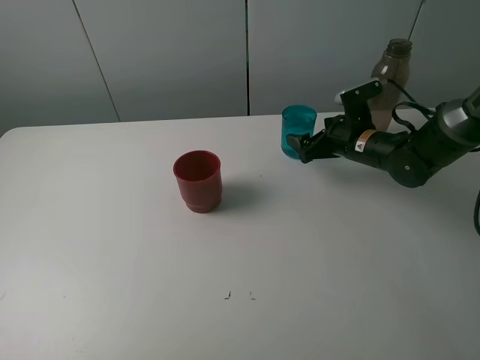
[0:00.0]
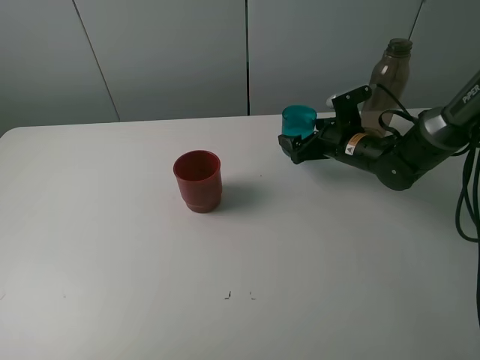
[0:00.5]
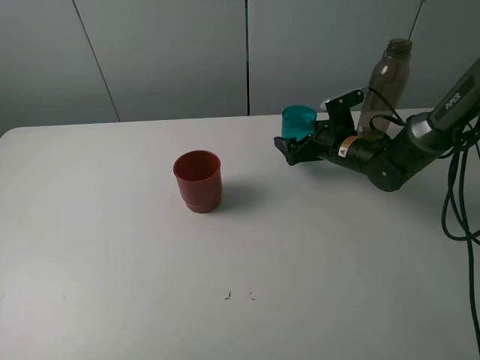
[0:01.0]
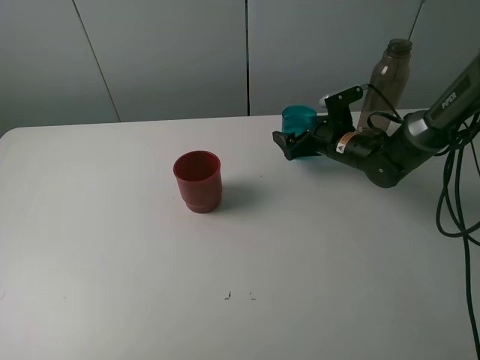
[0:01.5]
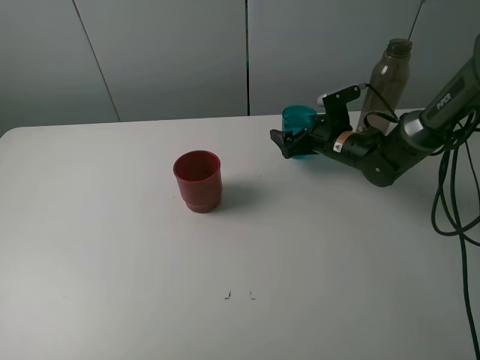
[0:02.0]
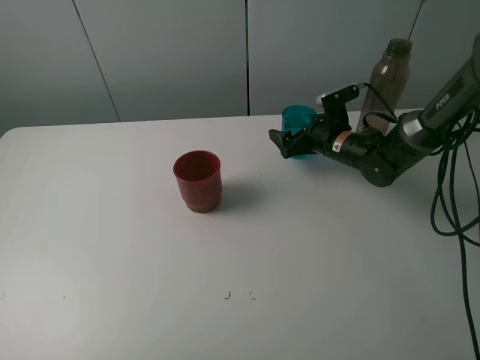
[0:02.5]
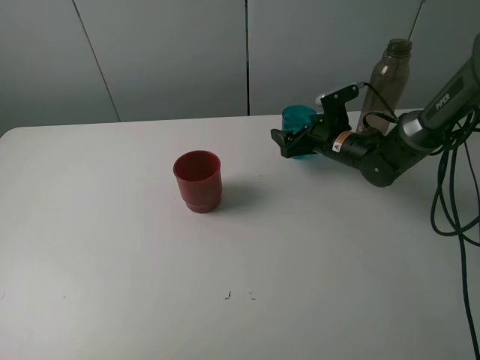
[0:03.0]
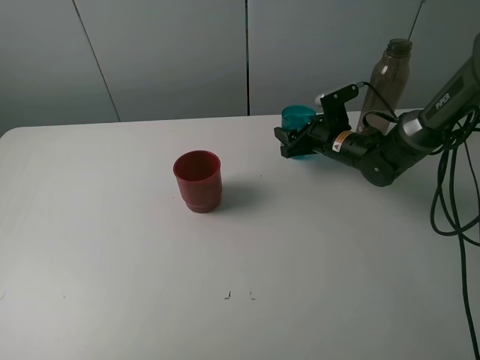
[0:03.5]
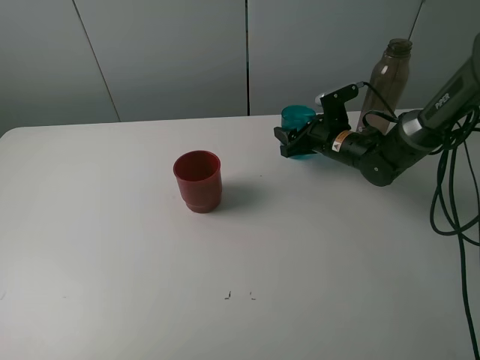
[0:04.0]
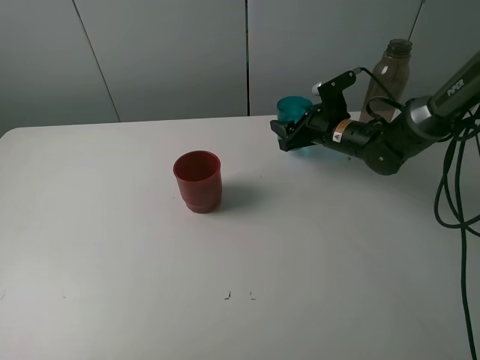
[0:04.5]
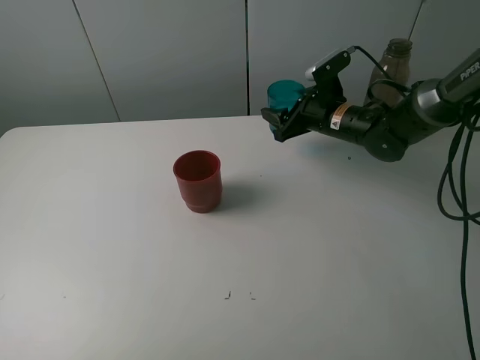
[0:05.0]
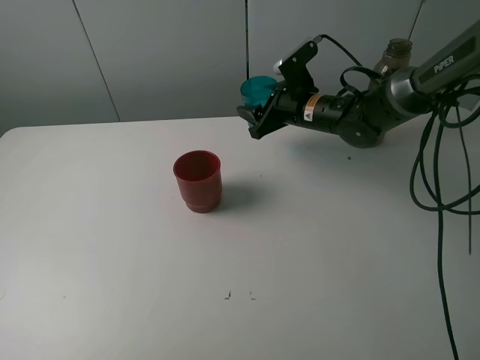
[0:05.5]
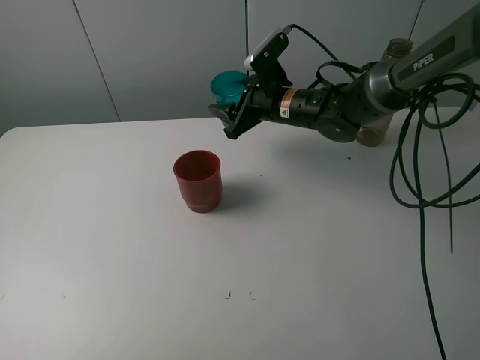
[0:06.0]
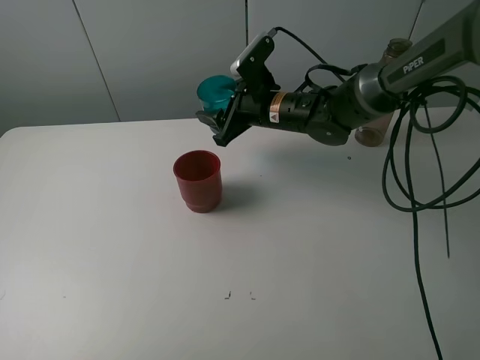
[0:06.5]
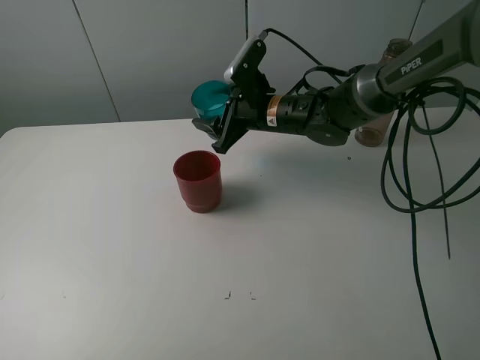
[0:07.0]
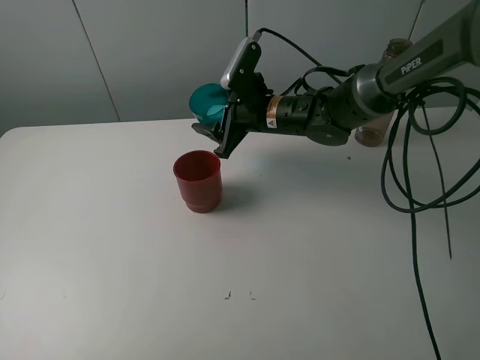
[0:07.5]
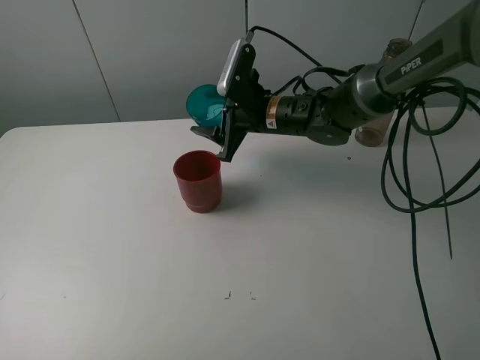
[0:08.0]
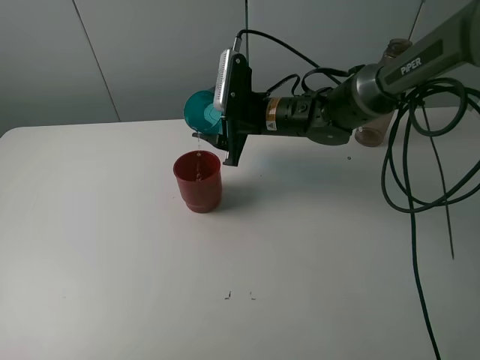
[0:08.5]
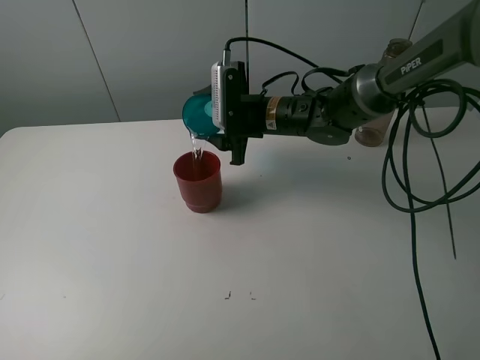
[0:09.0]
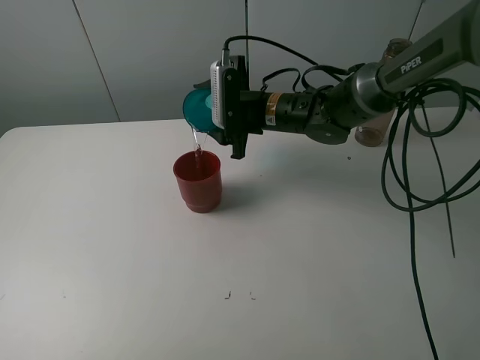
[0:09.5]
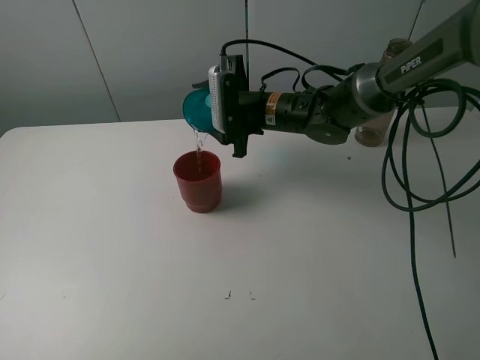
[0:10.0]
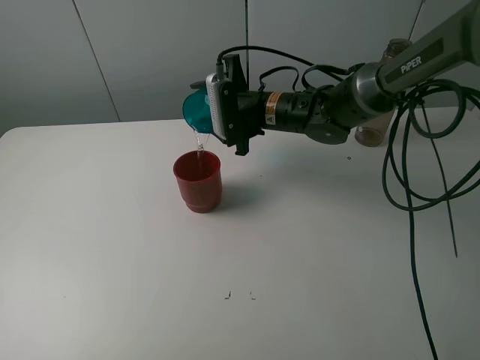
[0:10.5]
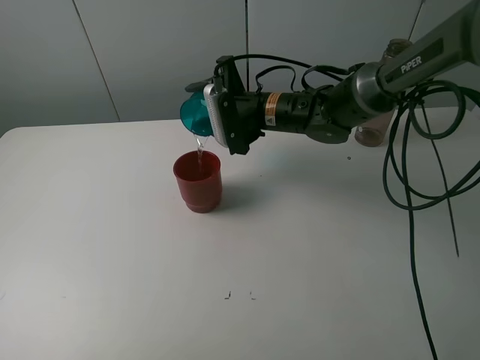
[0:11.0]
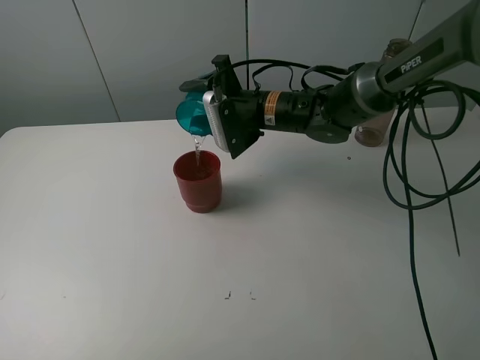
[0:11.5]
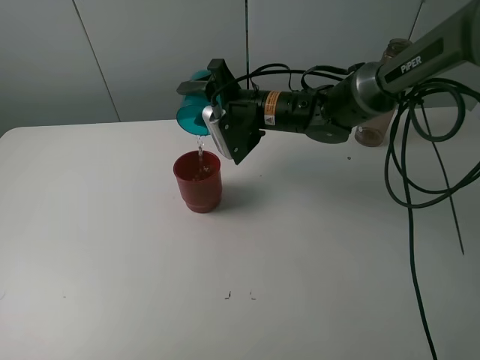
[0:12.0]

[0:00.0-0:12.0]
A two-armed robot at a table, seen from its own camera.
Task of the whole recording: pick up the bottle and pour water into the cup, then pick up the cup containing water and pour it into another cup.
Step, 0:00.0 to 0:03.0: Grasp the blue cup with the right gripper.
0:00.0 to 0:02.0: The grippers make only small movements.
0:02.0 to 0:04.0: The right gripper closes its fingers.
0:04.0 to 0:06.0: The right gripper travels to the left and upward by roughly 15 cm.

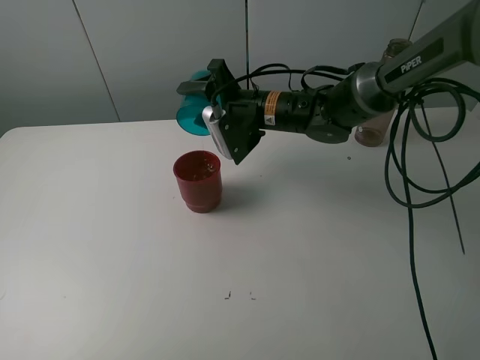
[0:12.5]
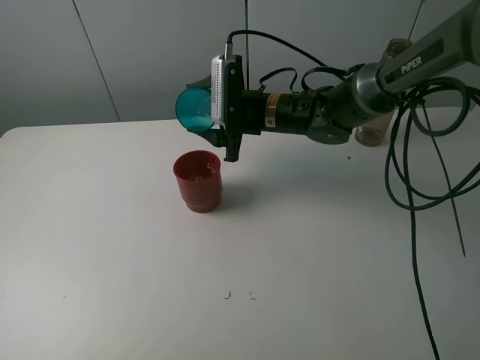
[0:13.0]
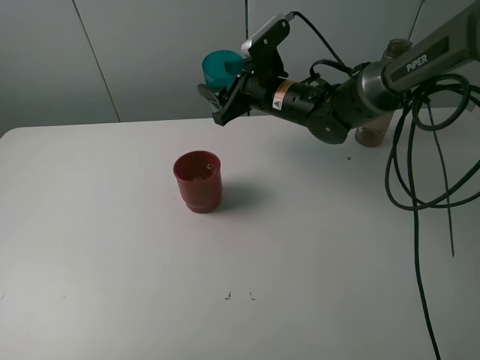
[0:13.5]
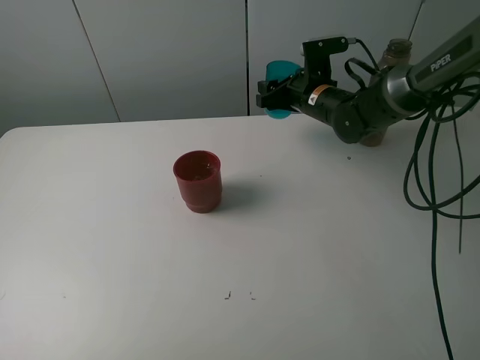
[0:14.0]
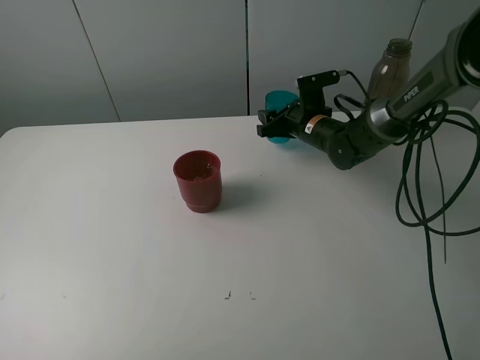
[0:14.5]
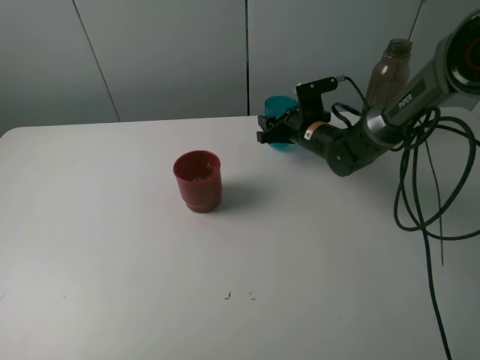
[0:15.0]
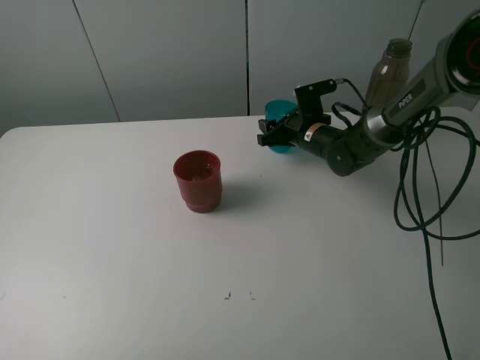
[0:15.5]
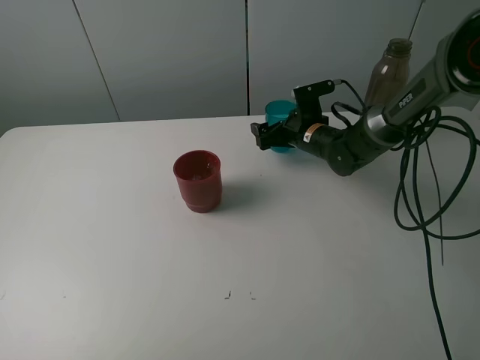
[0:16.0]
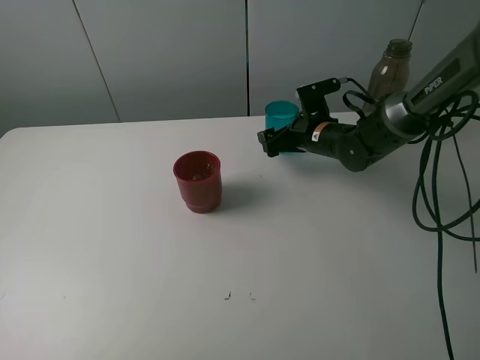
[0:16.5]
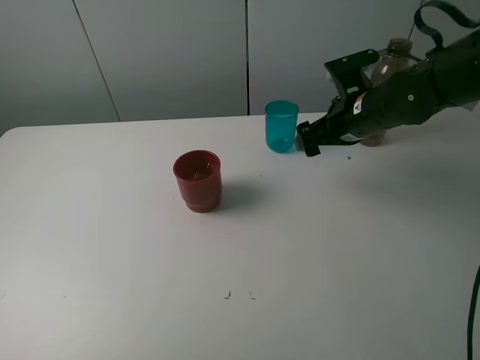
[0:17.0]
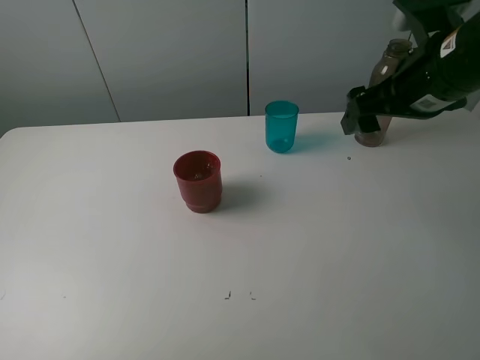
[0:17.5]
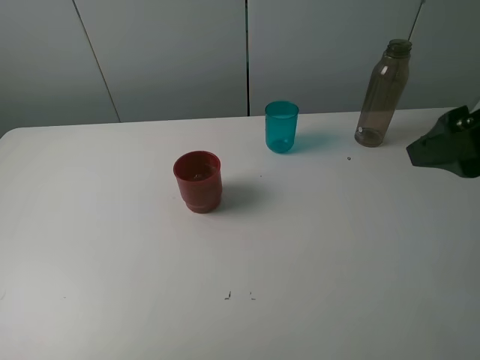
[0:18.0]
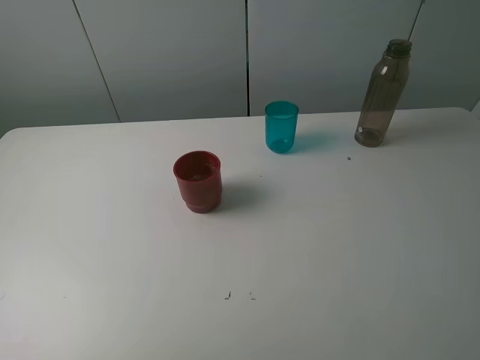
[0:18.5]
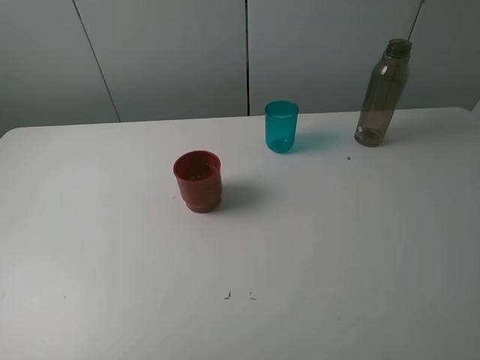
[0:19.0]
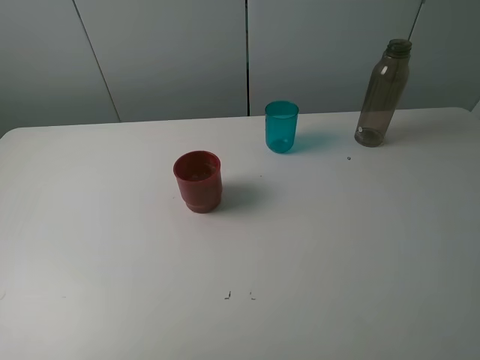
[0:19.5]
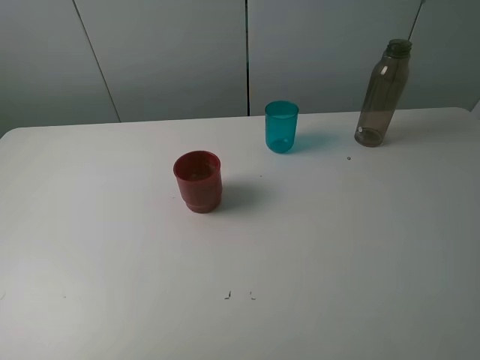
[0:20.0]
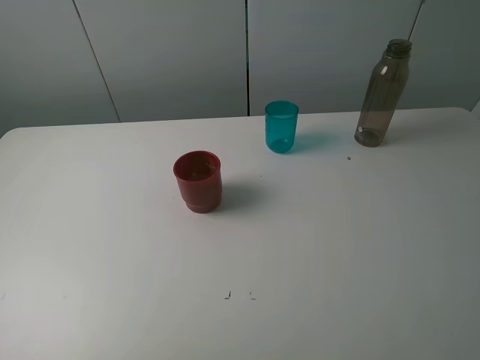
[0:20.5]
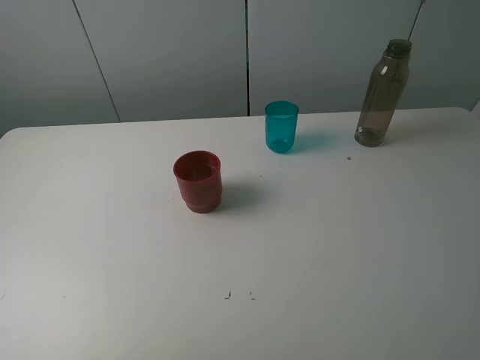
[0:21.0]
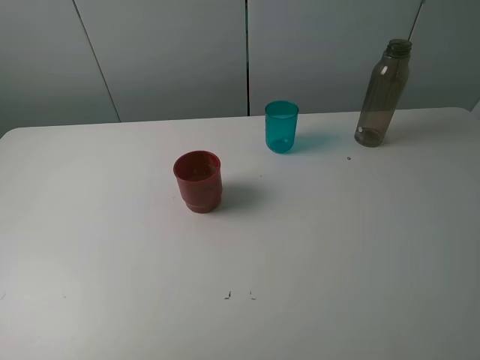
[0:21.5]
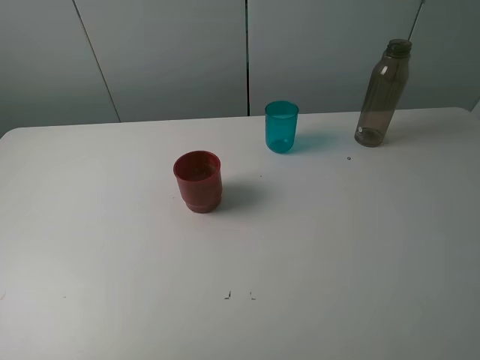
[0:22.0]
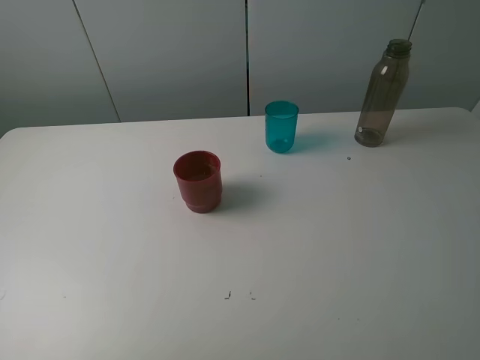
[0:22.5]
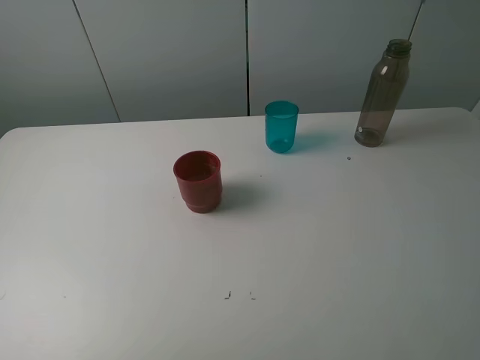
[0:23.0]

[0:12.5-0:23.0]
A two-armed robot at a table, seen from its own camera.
Task of the whole recording: pick up the bottle and pour water into the cup, then pick up the cup containing water and pour it into another cup.
Step, 0:13.0 to 0:16.0: Place the blue cup with the right gripper.
0:12.5 to 0:14.5: The right gripper travels to the right and downward by about 10 cm.
0:14.5 to 0:16.5: The right gripper opens.
0:16.5 to 0:19.0: The right gripper moves backward and upward, roughly 50 cm.
0:21.0 to 0:23.0: Neither gripper changes place.

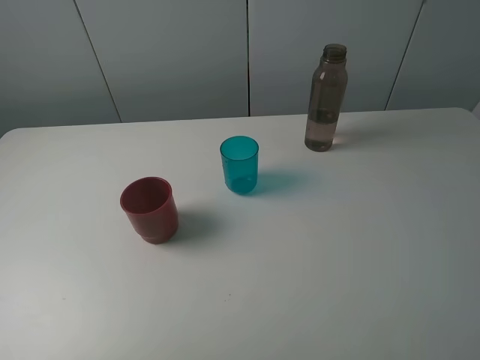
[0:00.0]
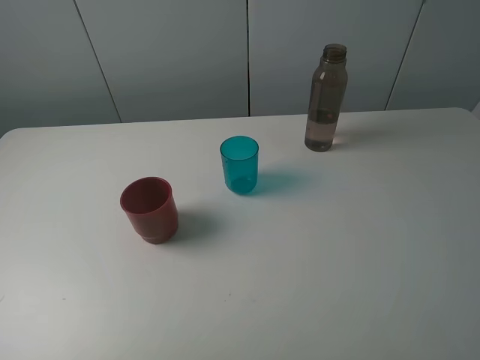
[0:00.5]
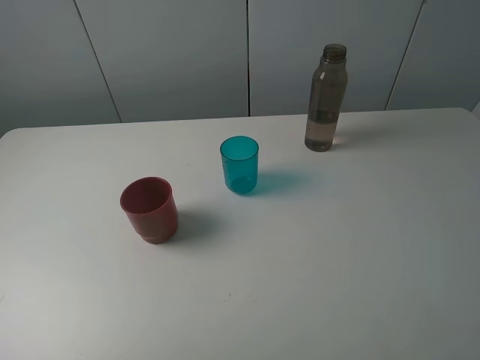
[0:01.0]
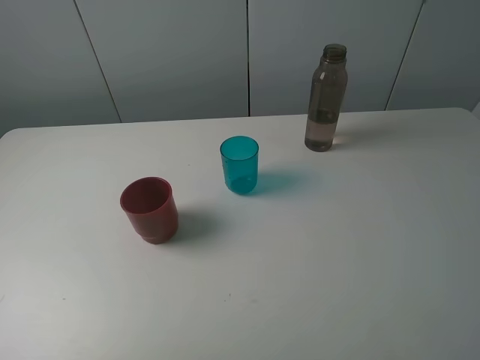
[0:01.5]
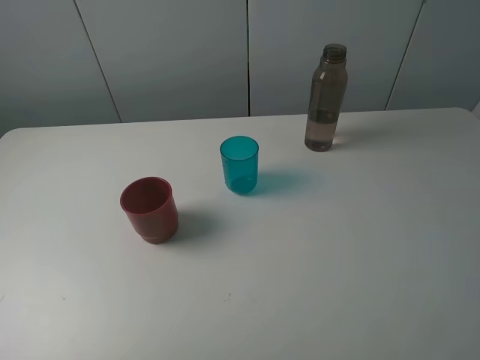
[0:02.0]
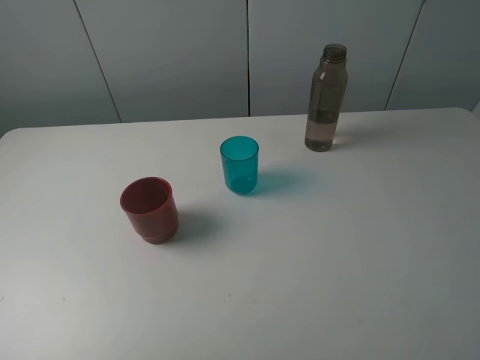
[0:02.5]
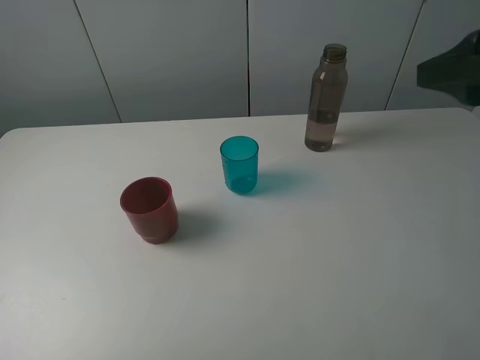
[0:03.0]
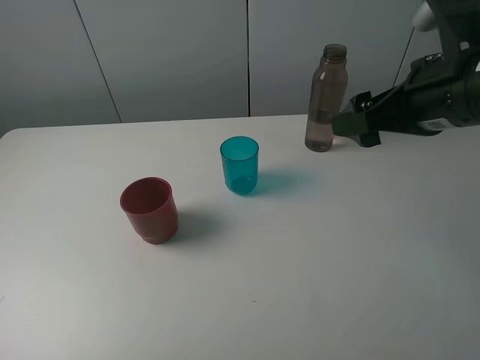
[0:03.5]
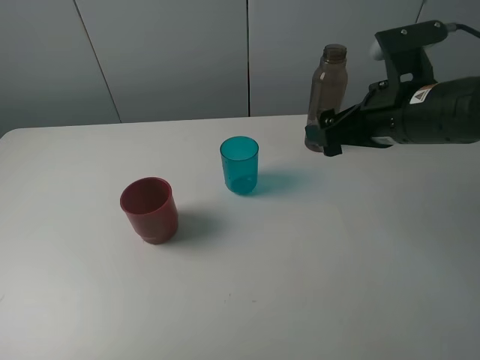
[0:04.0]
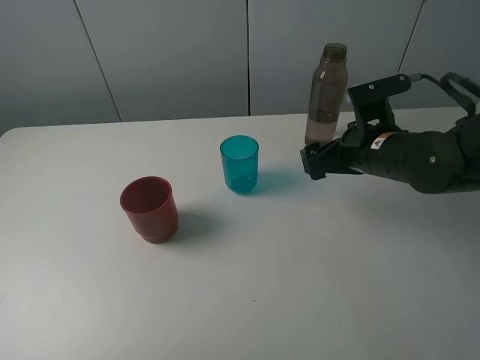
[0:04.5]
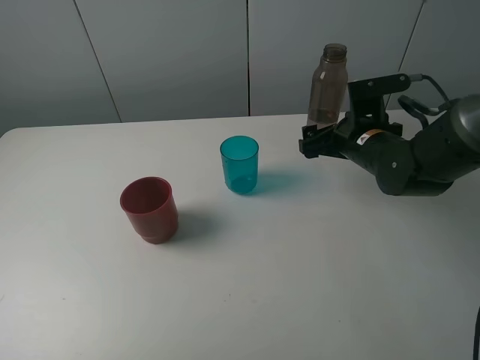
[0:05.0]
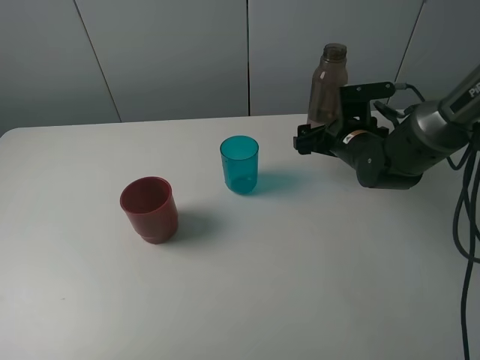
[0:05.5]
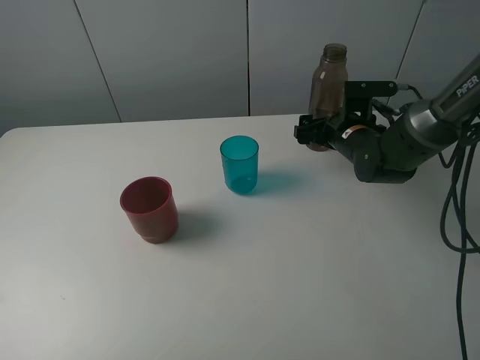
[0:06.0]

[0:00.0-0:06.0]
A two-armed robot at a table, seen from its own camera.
Task of the whole recording: pick up the bottle and pour water into the cup, then pick up the cup containing water and pour it into another cup.
0:00.0 to 0:02.0: The two grippers keep their place.
0:02.0 to 0:04.0: The right gripper goes some 25 cm forward.
0:04.0 to 0:06.0: The right gripper goes approximately 15 cm downward and forward.
